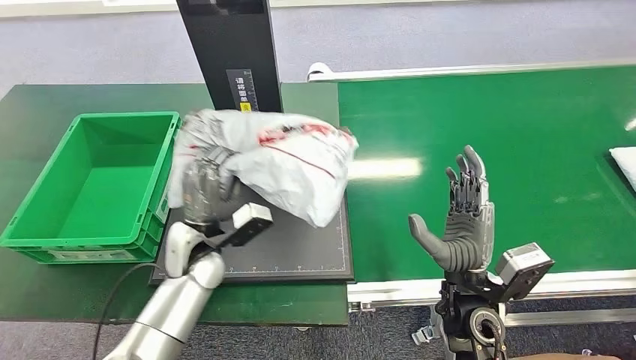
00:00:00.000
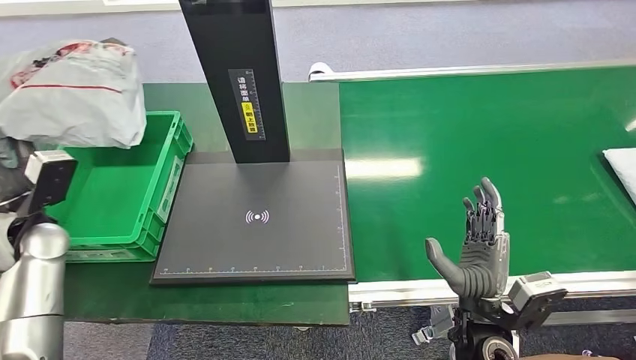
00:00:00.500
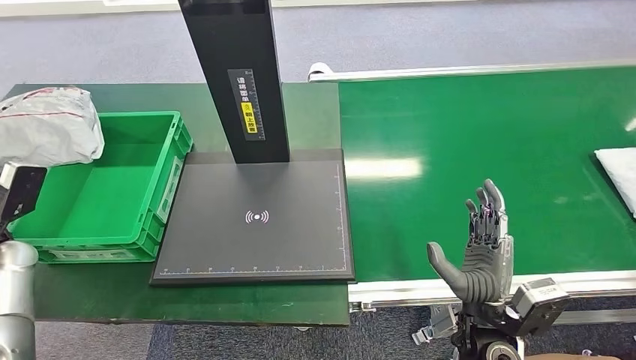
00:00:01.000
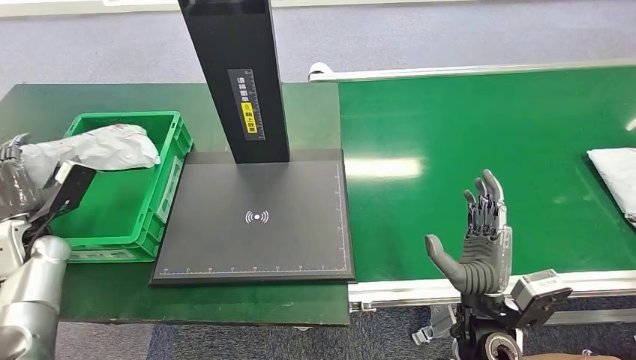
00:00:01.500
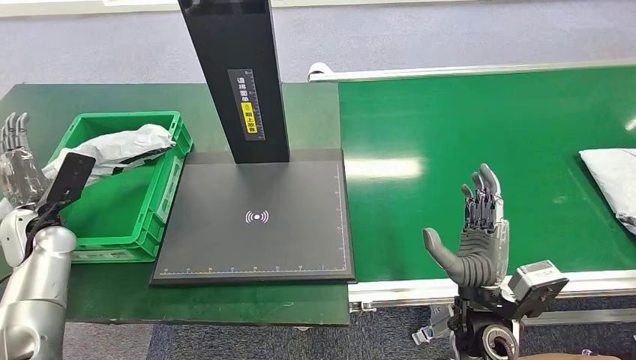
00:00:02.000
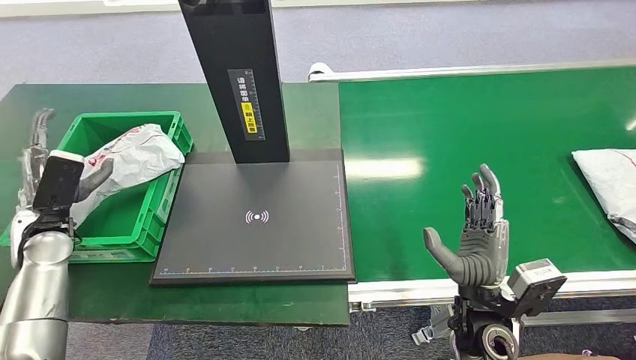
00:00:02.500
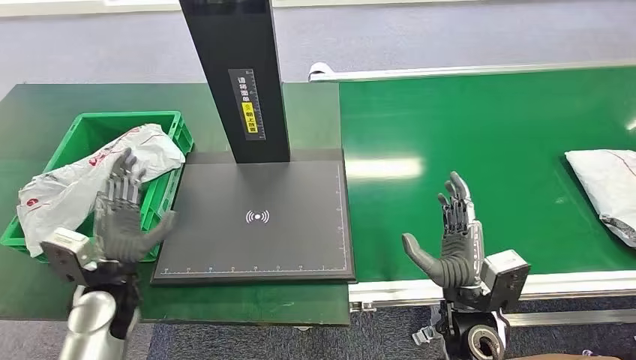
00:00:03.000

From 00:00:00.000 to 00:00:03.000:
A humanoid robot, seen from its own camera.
Step, from 00:00:01.000 to 00:00:02.500: Place the package into the parcel locker.
From 00:00:01.500 to 00:00:03.000: The left hand goes some 20 cm to the right.
